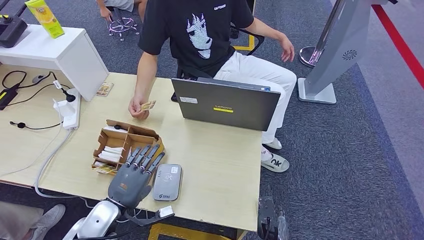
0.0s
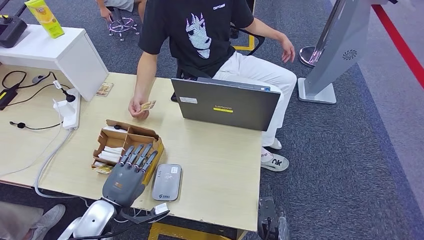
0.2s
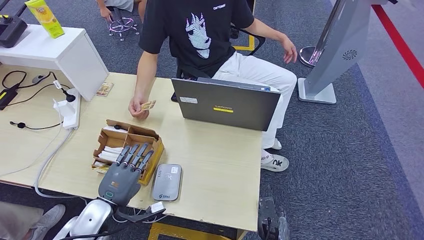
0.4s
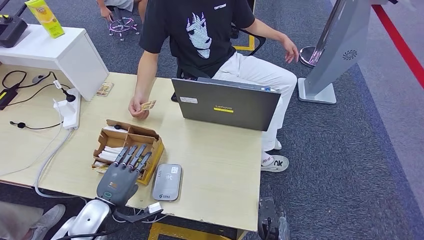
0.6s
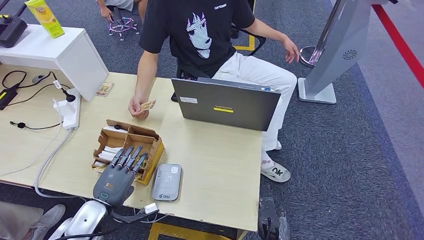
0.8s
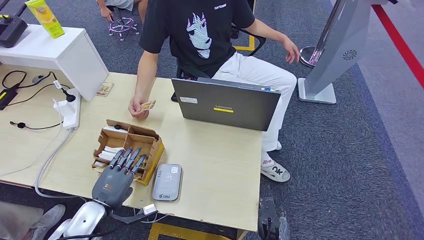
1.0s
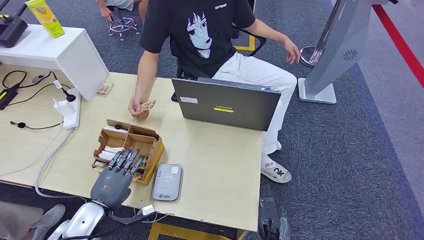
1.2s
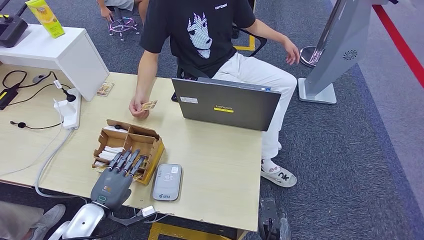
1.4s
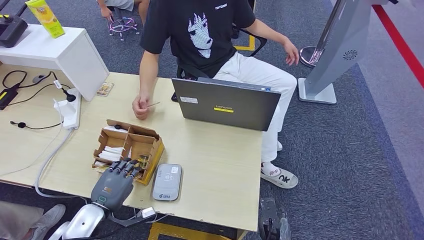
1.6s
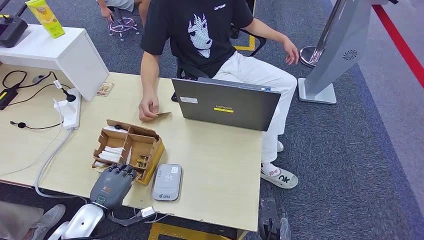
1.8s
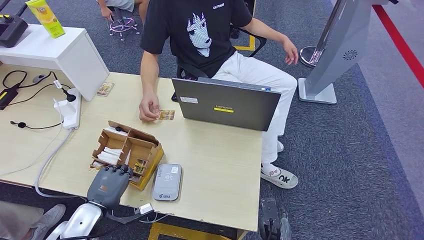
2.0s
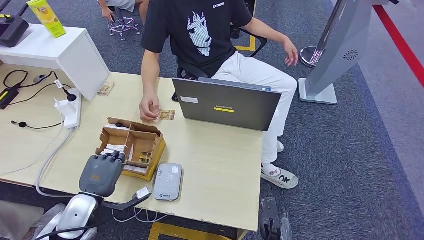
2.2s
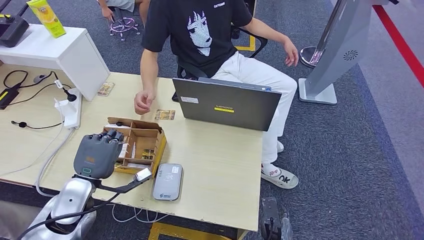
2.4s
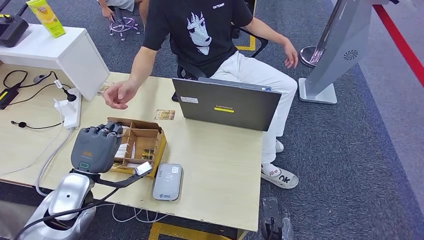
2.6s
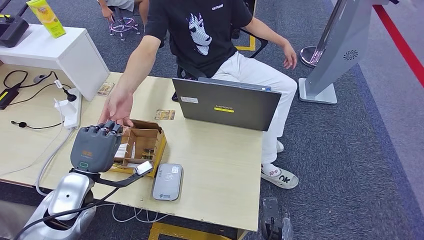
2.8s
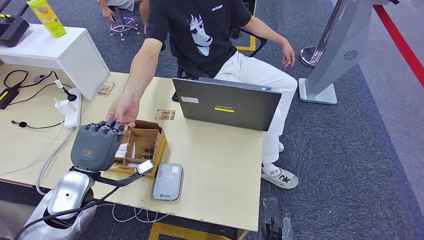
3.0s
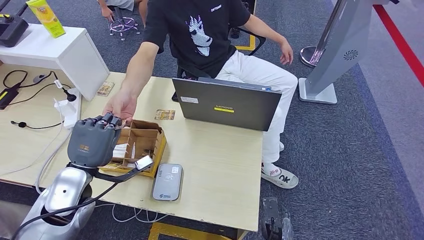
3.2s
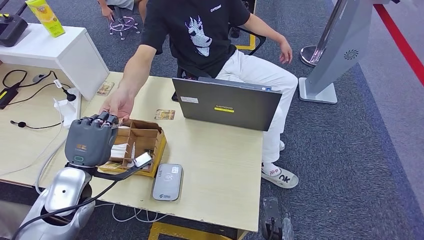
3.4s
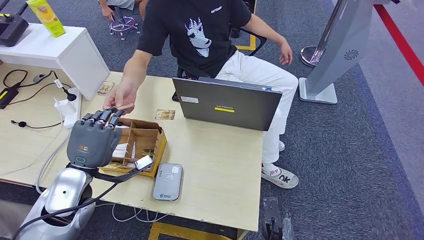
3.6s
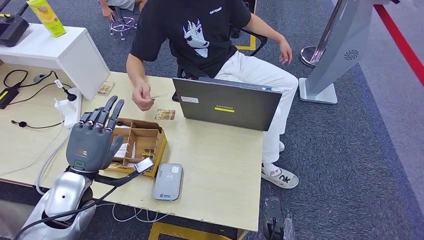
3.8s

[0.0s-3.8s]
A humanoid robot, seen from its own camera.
Step, 0.0s to 2.2s: Pick up the room key from the key card box.
Step, 2.6s to 3.8s: Hand the room key to the person.
0.0s to 1.2s: The hands make only small movements.
1.2s to 2.6s: The left hand is displaced upward by approximately 10 cm.
2.6s to 3.8s: The hands stay close to where they were, moving slightly.
